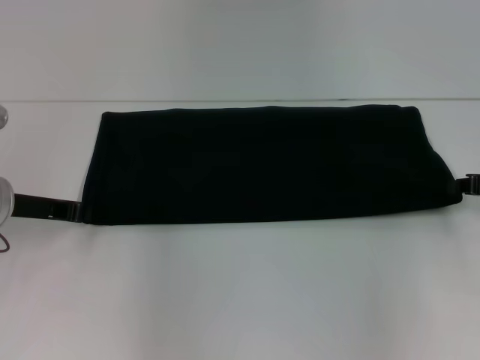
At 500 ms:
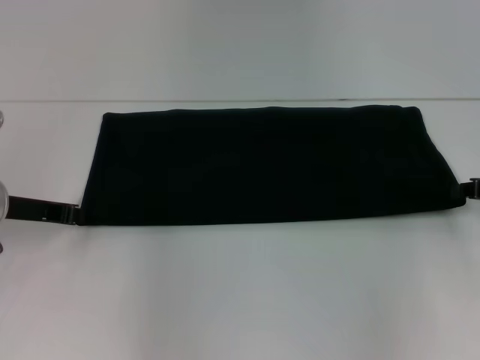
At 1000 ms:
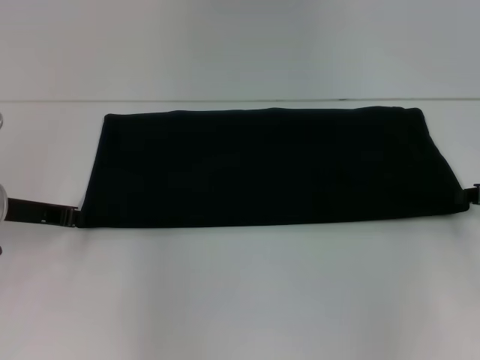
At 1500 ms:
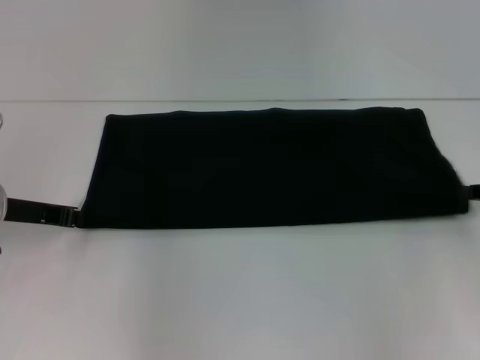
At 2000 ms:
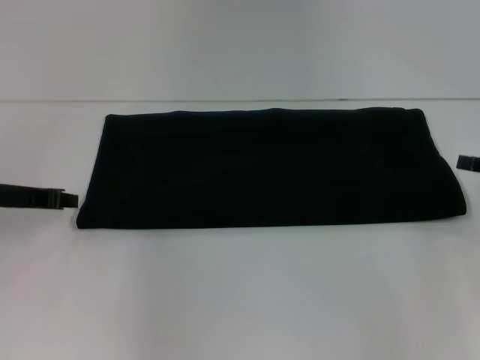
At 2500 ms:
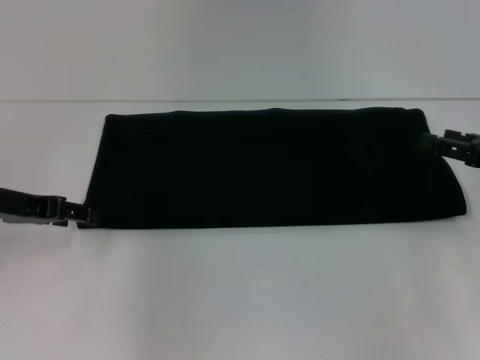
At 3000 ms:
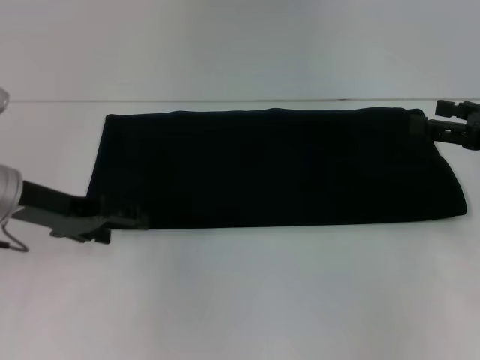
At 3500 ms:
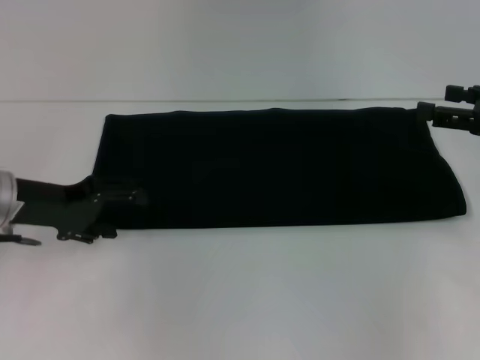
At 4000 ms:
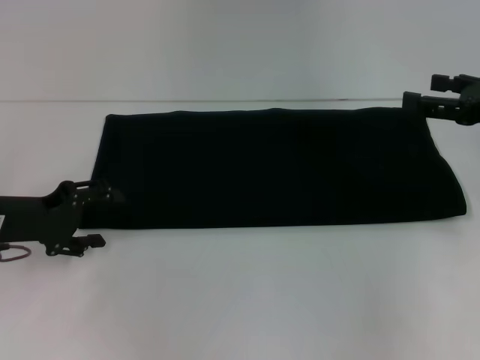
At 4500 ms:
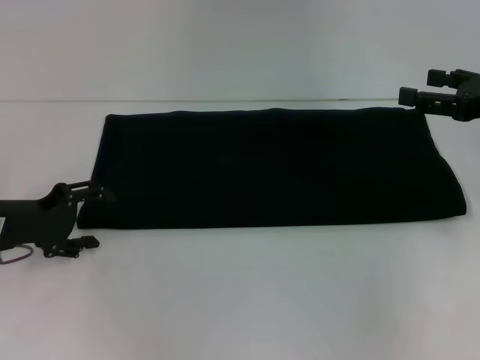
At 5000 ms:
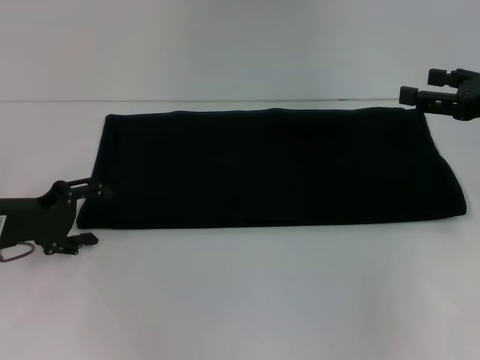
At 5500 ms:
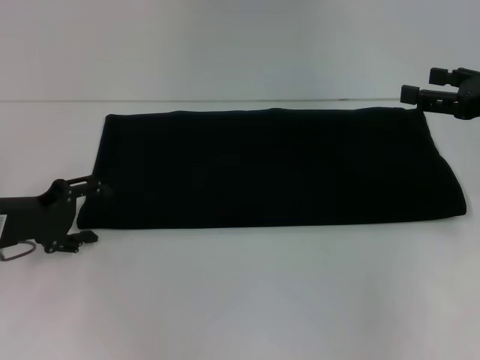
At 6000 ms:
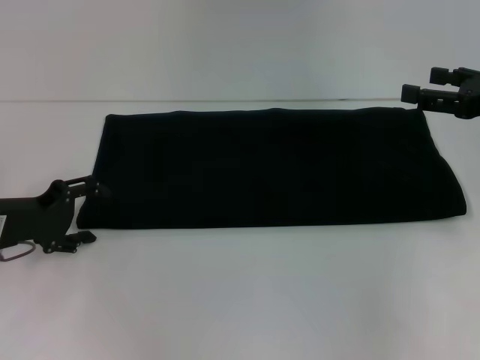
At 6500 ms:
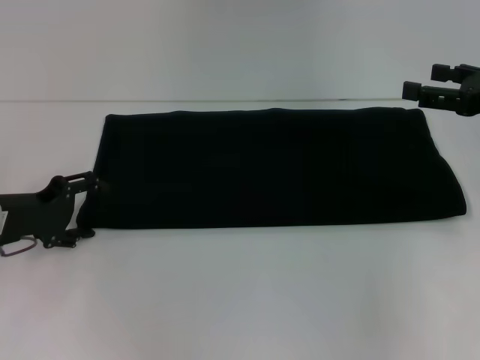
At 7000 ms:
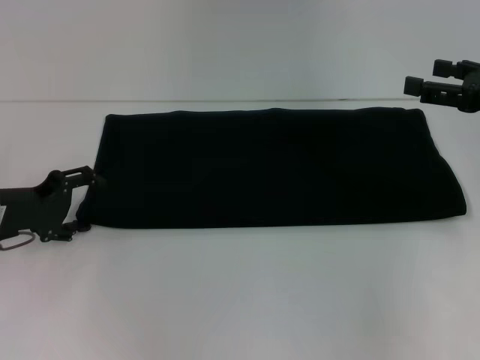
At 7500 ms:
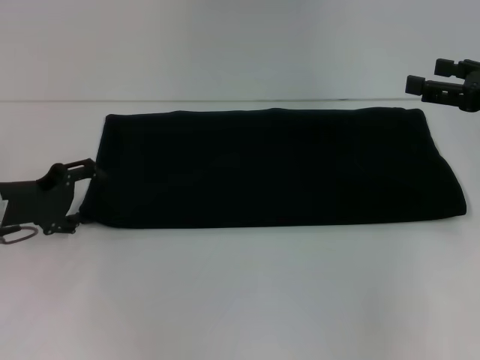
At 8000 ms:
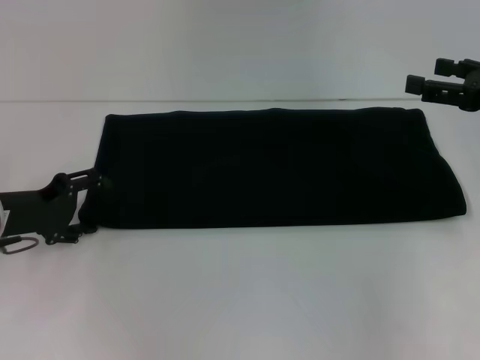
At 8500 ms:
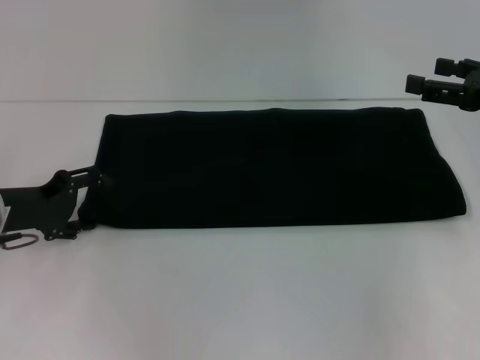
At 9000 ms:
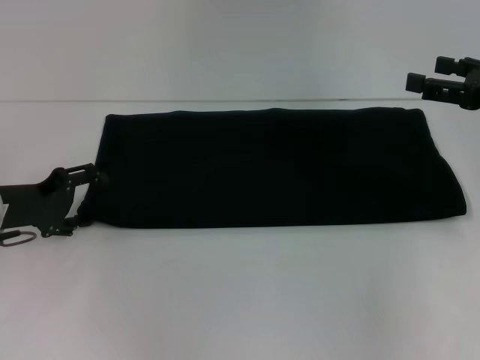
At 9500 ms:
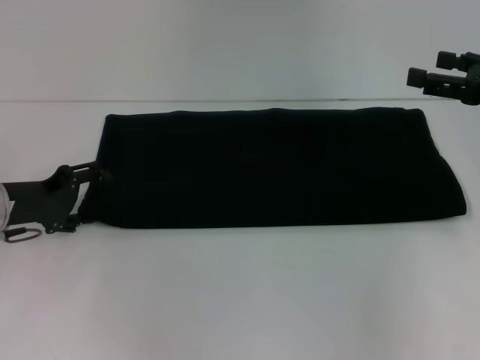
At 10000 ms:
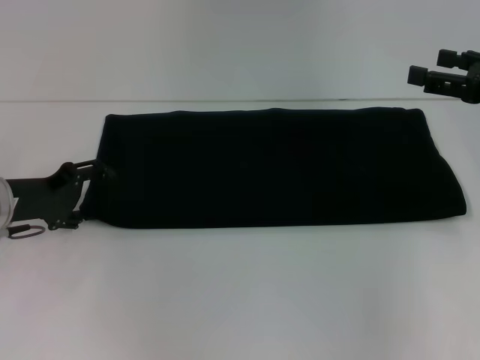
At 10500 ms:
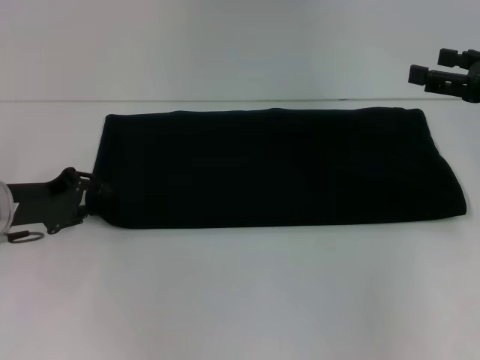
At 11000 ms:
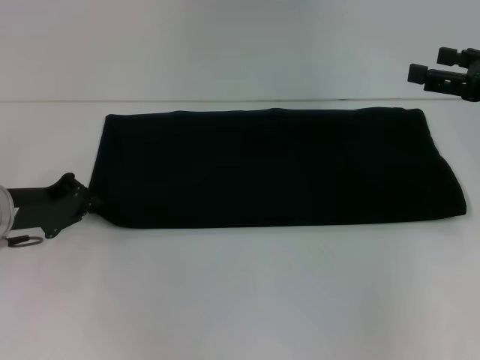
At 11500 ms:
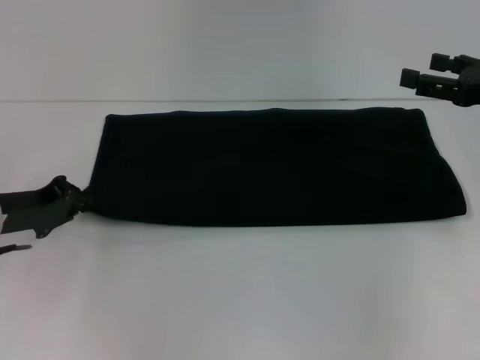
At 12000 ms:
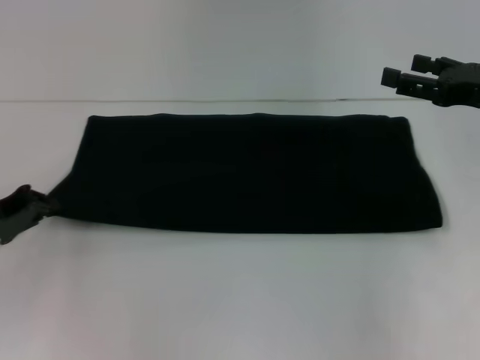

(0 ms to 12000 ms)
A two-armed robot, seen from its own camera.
0 ms - 2000 ms: The grippers stay close to where they were, moving slightly.
2000 ms - 4000 ms: The left gripper opens its fingers. The right gripper moves upward, about 5 cm, and opens its fingers.
4000 ms - 10000 ms: The grippers stay close to where they were, moving slightly.
10000 ms - 12000 ms: The left gripper shifts by roughly 5 cm, and closes its fingers.

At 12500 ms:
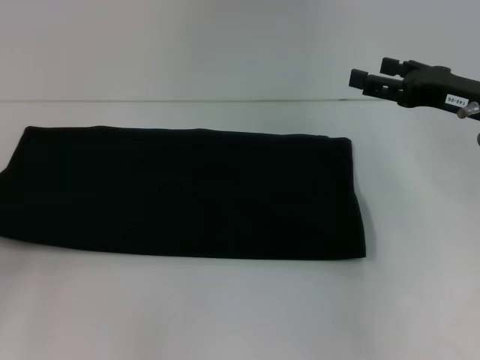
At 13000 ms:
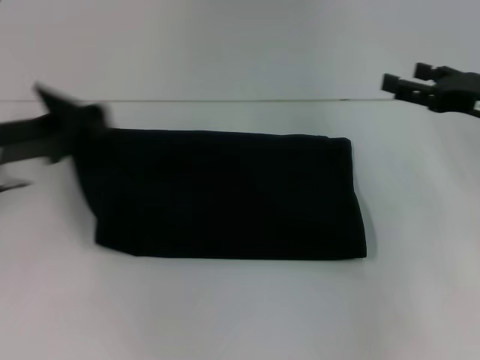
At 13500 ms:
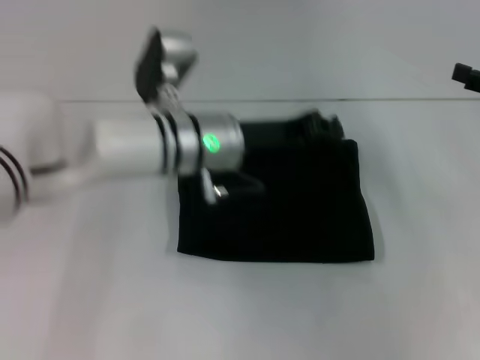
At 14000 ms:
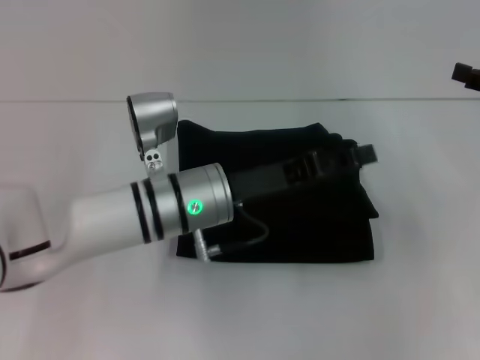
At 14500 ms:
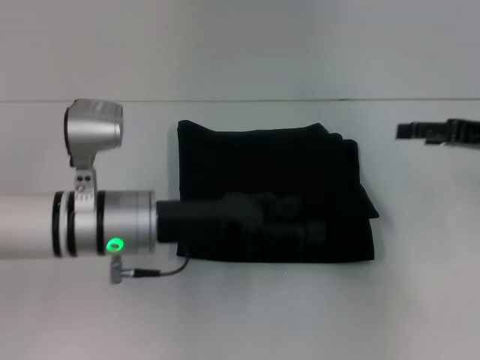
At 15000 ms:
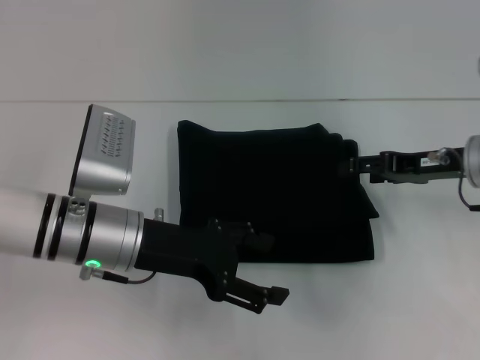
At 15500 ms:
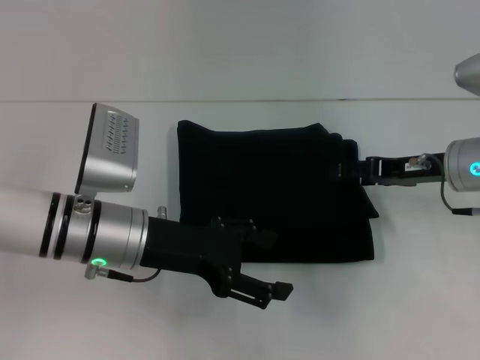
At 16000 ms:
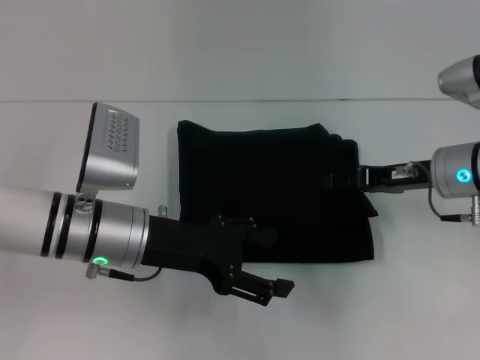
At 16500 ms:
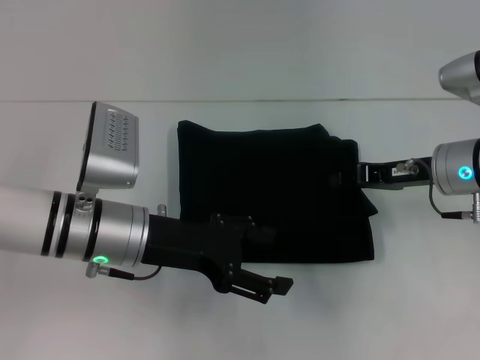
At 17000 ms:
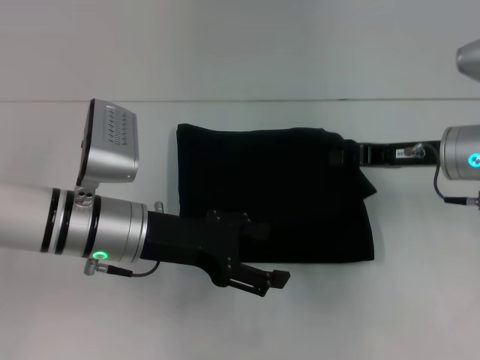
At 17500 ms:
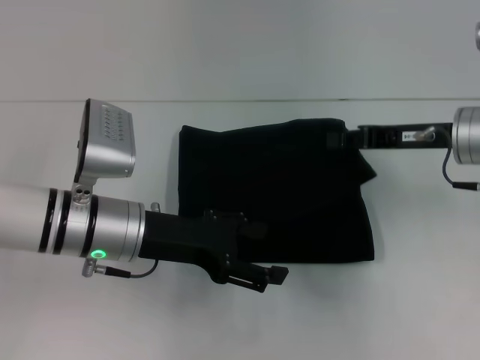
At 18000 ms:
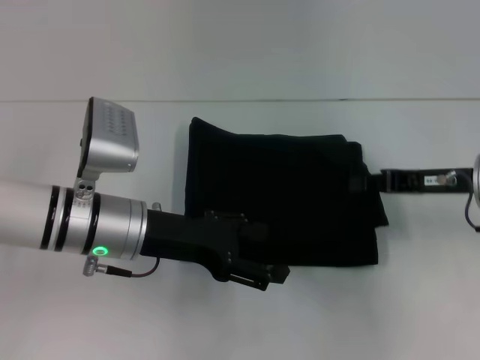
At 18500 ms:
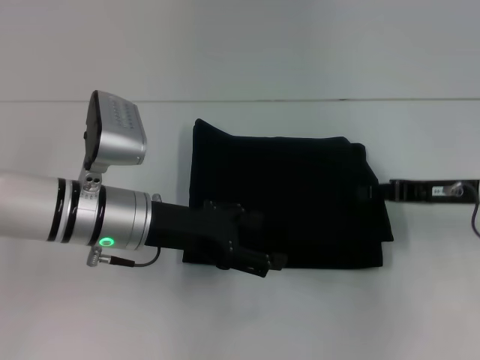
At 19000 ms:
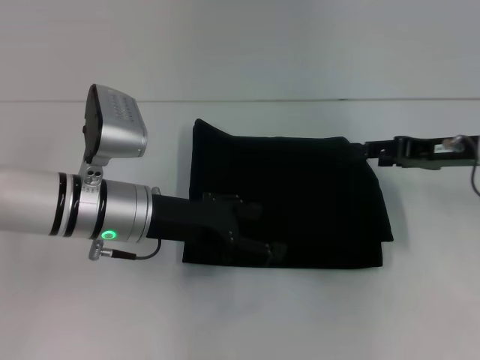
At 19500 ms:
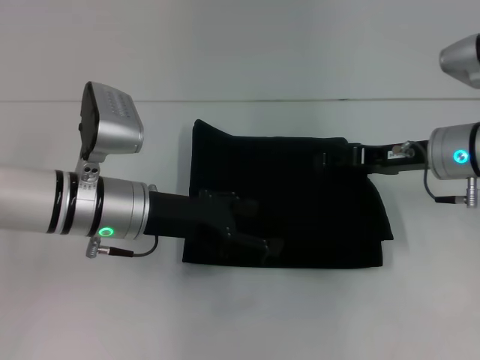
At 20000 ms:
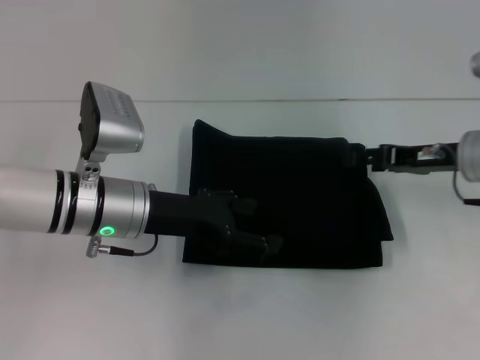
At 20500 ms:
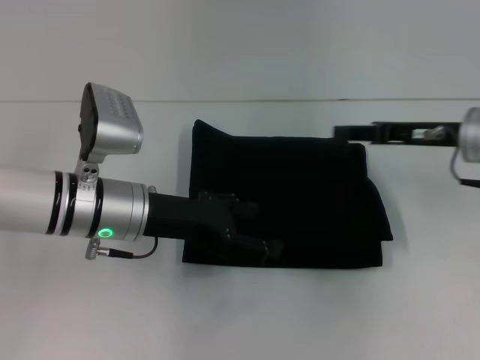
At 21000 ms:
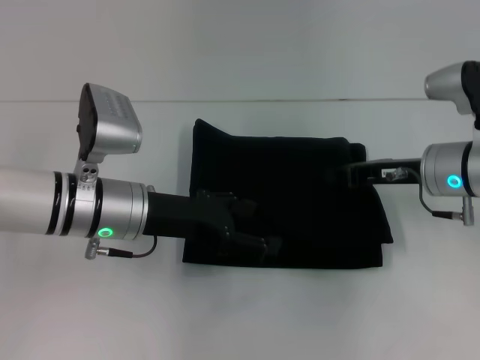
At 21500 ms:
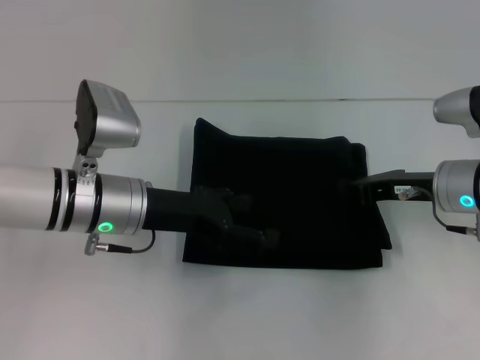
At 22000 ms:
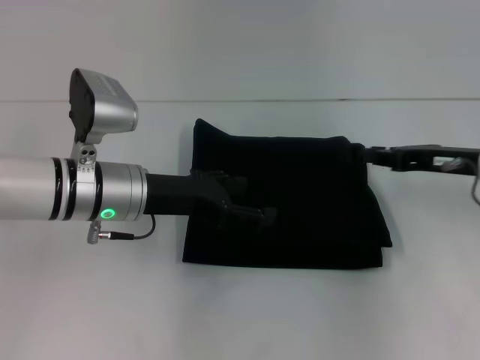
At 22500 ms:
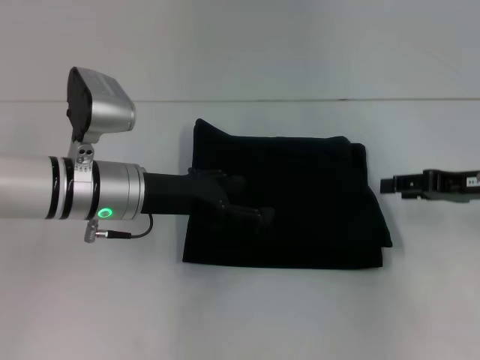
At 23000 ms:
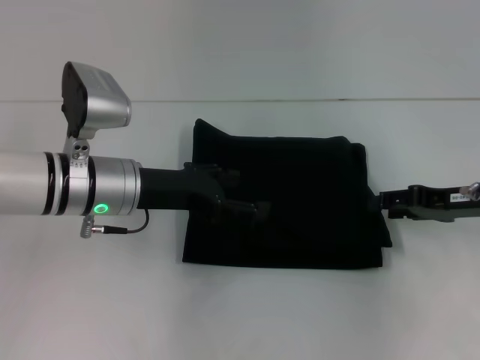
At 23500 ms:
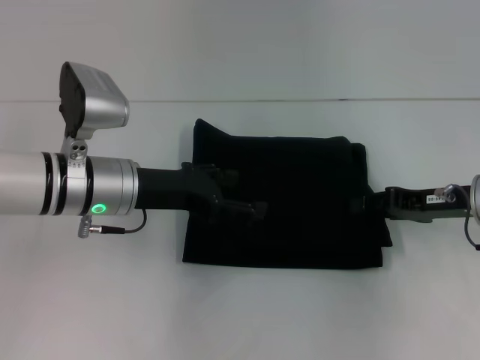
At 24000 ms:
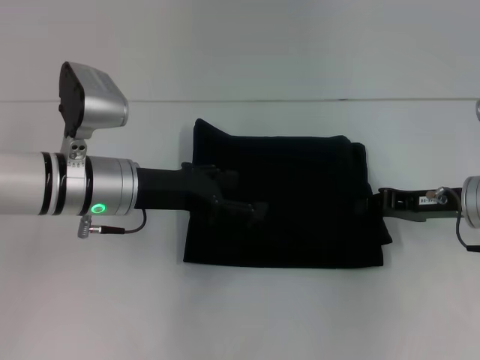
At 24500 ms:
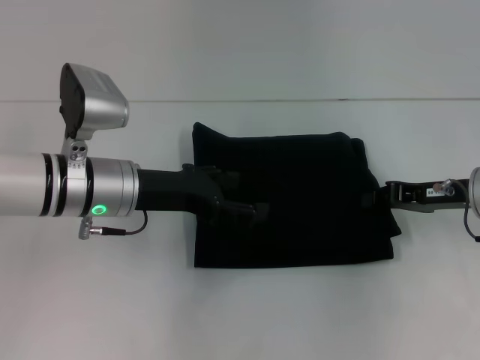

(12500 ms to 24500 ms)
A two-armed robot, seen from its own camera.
12500 ms - 14500 ms: The left gripper is displaced to the right by roughly 25 cm, and opens its fingers.
14500 ms - 16500 ms: The right gripper goes about 10 cm to the left, and closes.
16500 ms - 18500 ms: The right gripper changes place by roughly 5 cm.
18500 ms - 20500 ms: The right gripper shifts by some 5 cm, and opens its fingers.
20500 ms - 22500 ms: The right gripper goes some 5 cm to the right, and closes, then reopens.
22500 ms - 24500 ms: The right gripper closes.

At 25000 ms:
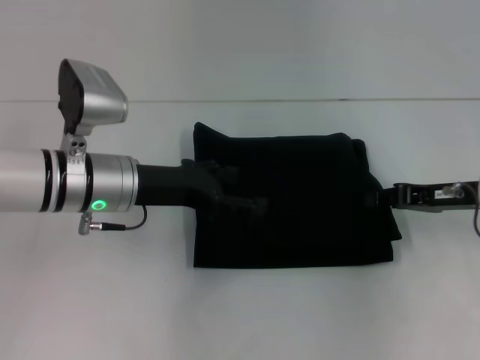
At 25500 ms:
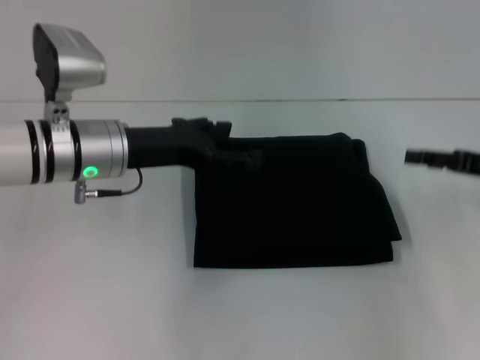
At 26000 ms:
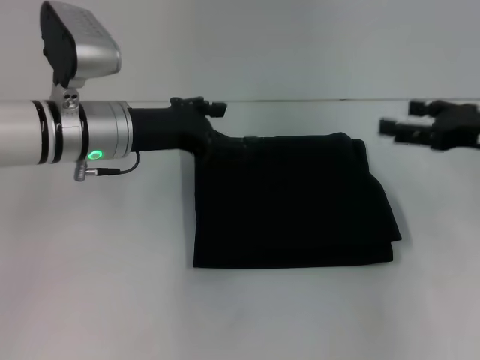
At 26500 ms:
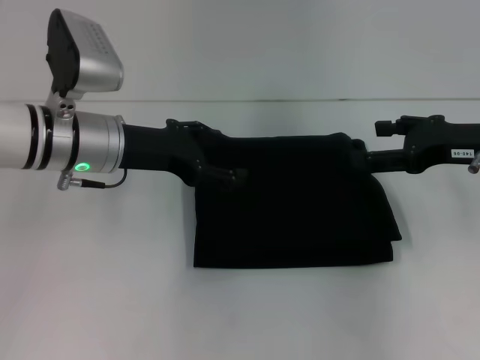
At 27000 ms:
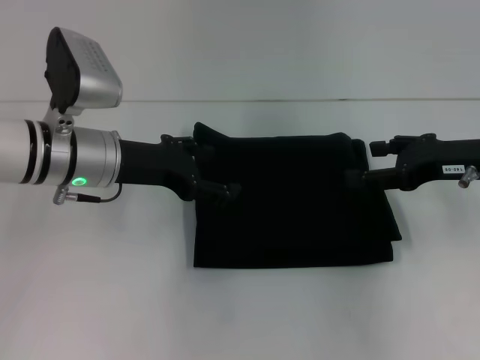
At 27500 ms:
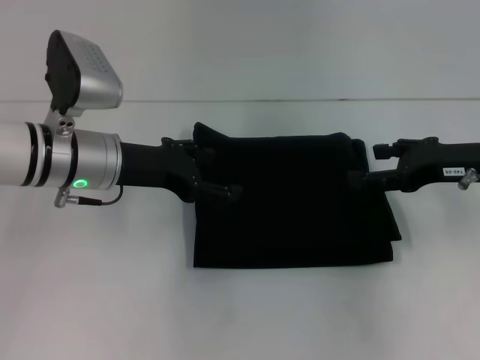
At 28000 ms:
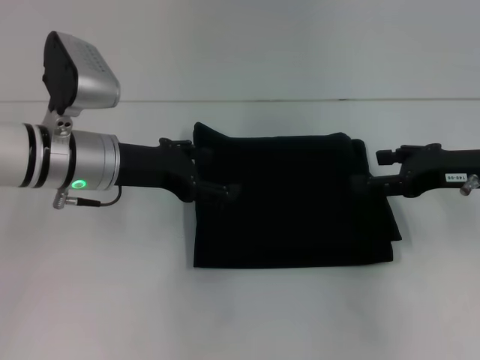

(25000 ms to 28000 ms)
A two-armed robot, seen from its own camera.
25000 ms - 26500 ms: The right gripper heads upward, covering some 5 cm, and opens its fingers.
26500 ms - 28000 ms: There are only small adjustments of the grippers.
